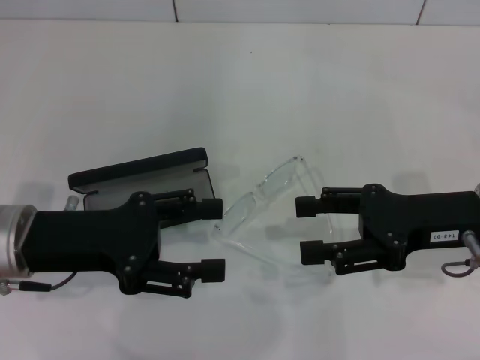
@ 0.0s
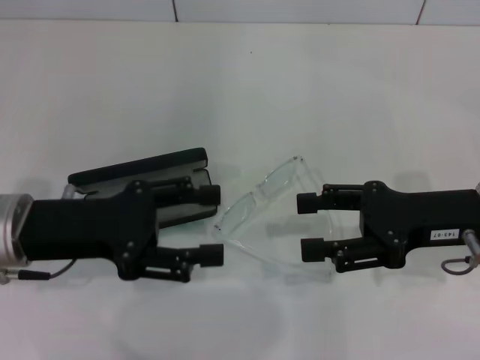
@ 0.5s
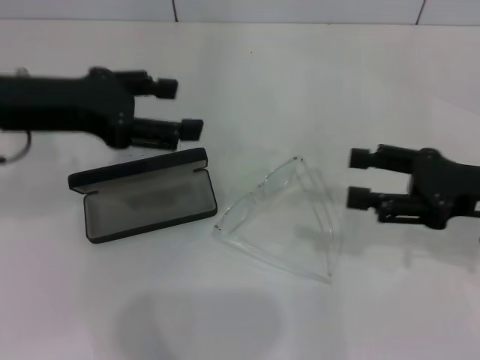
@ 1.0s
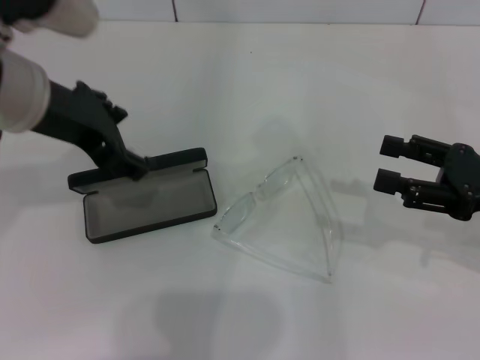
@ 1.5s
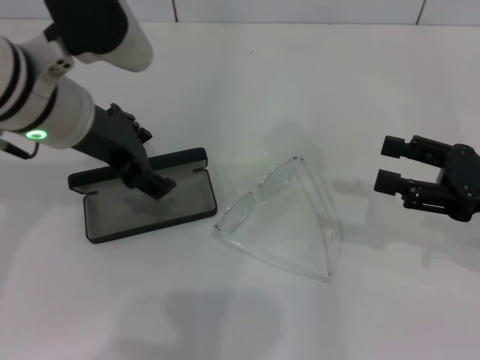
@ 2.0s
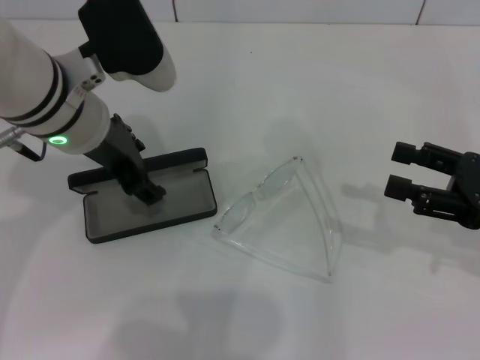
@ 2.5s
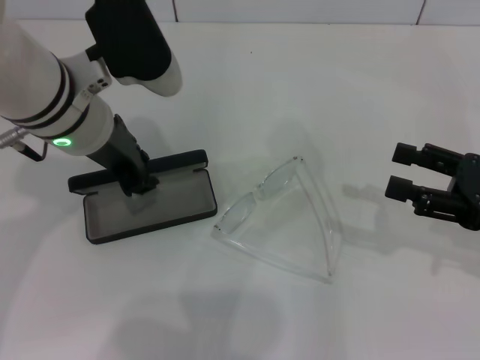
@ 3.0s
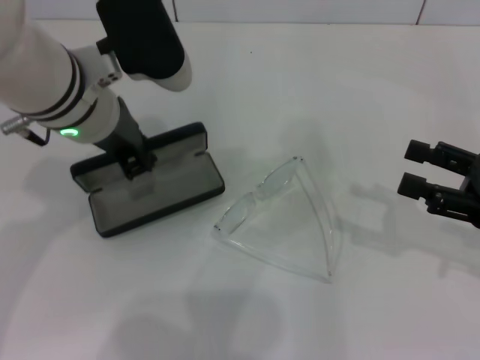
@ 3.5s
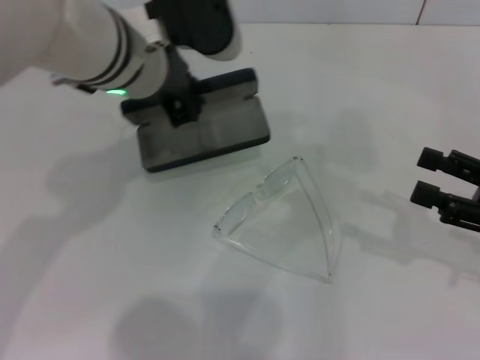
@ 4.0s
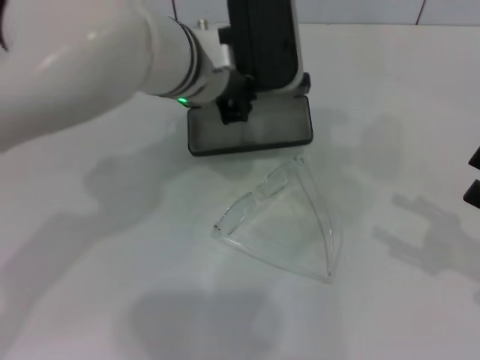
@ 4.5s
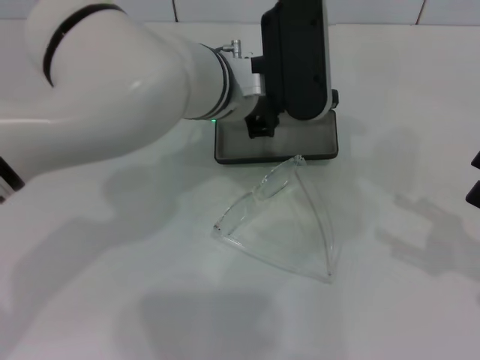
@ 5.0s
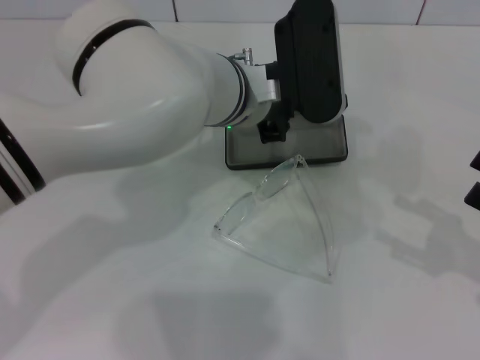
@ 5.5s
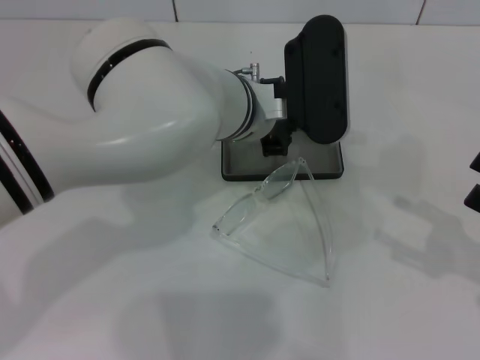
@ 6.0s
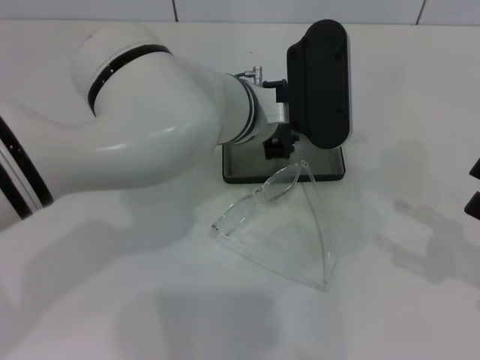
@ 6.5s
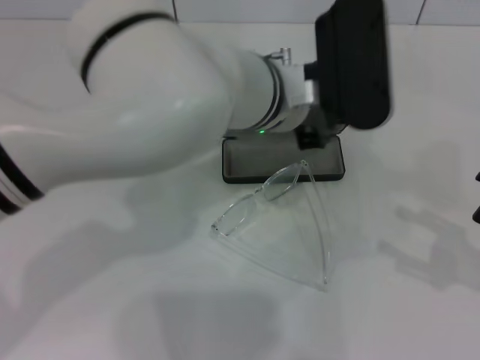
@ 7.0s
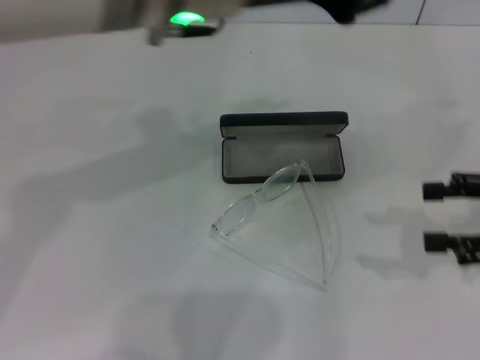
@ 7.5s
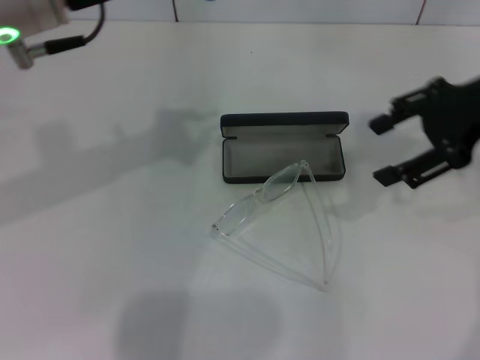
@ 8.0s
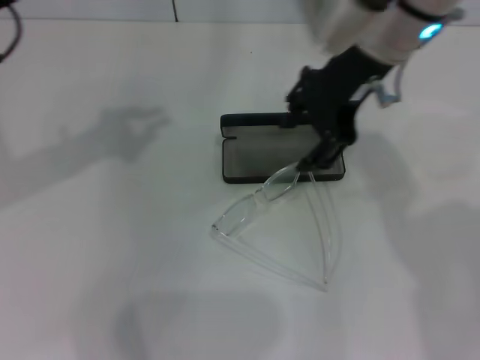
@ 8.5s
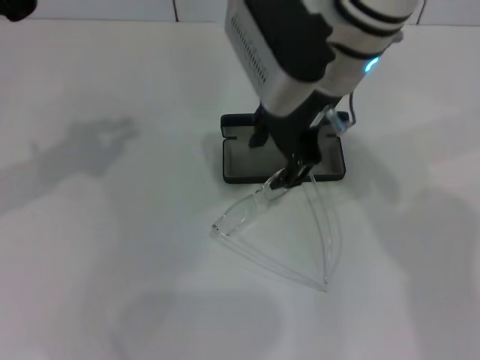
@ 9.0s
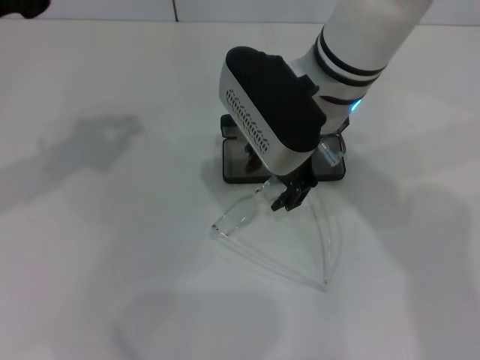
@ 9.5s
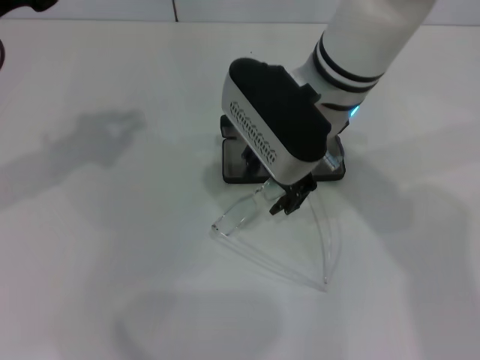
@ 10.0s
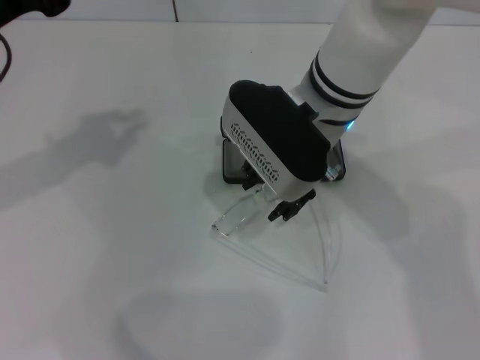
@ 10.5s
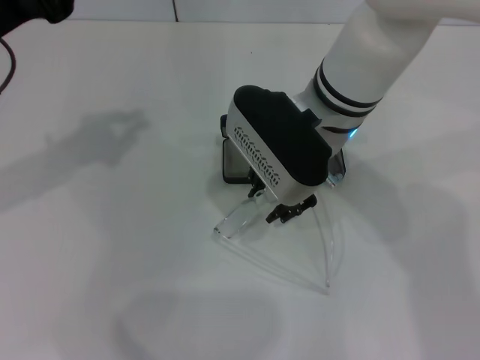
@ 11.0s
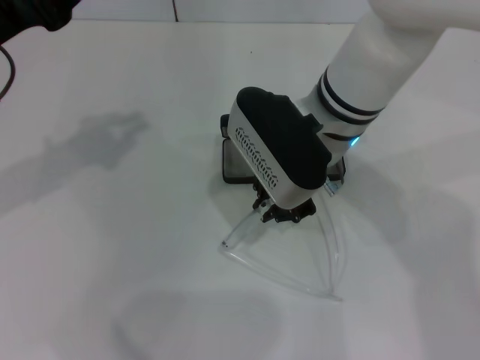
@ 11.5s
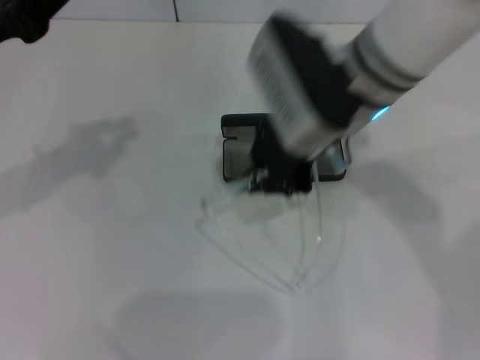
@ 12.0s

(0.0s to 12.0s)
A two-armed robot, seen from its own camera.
Step, 0.0s - 3.0s: Grab the glasses case with your left hand.
Step, 3.5s - 6.0s: Place the glasses case in the center of the table with your left hand.
Step, 6.5s - 11.0s: Grab the eyeglass frame with your right hand.
0.0s - 2.0s: The right gripper shifts roughly 5 cm to the right. Meanwhile the left gripper is displaced upward, forward and to the right by some 15 cm.
2.0s - 4.0s: The left gripper heads to the right, covering about 5 cm, and closes its fingers.
4.0s - 6.0s: The left gripper shifts roughly 10 cm to the right and downward.
6.0s - 8.0s: The right gripper heads forward, upward and to the left, covering some 25 cm. The left gripper is displaced to the left and upward by approximately 20 cm.
8.0s - 10.0s: The right gripper moves to the left, about 20 cm; the left gripper travels to the left and downward by approximately 10 cm.
10.0s - 12.0s: The right gripper closes up.

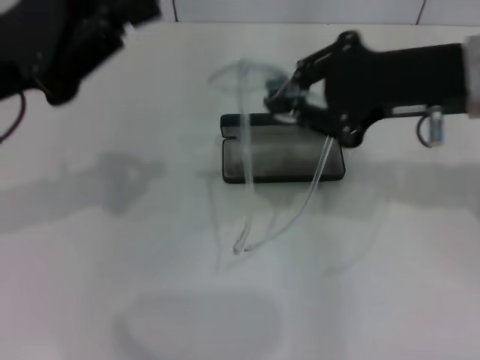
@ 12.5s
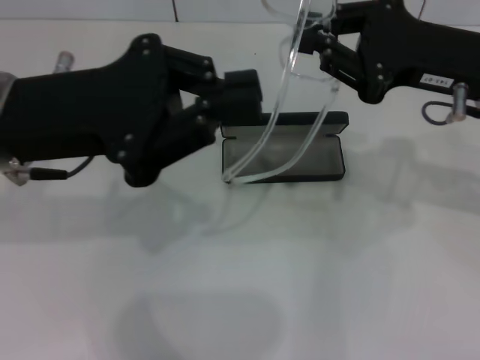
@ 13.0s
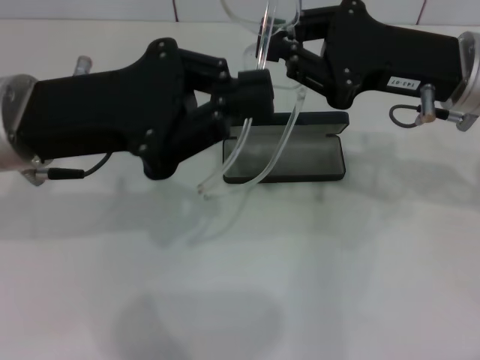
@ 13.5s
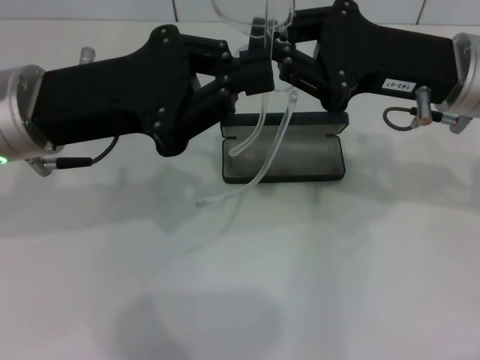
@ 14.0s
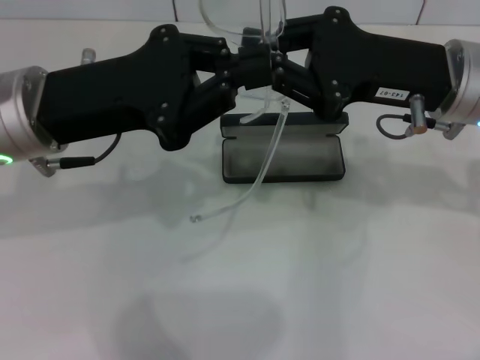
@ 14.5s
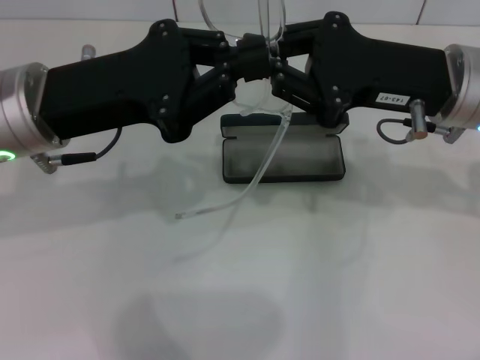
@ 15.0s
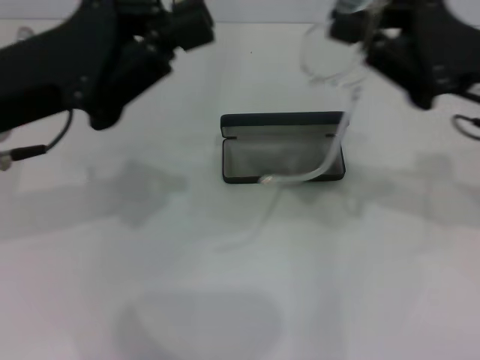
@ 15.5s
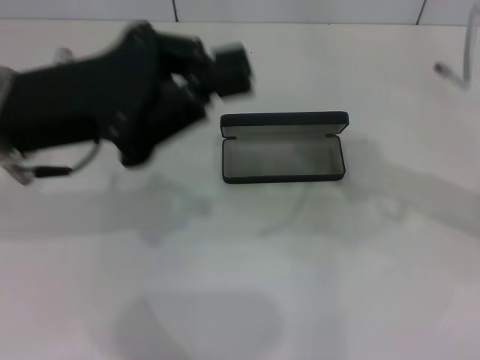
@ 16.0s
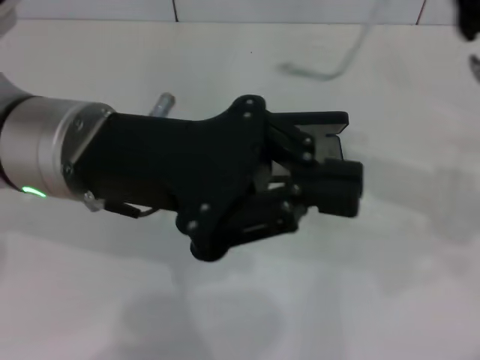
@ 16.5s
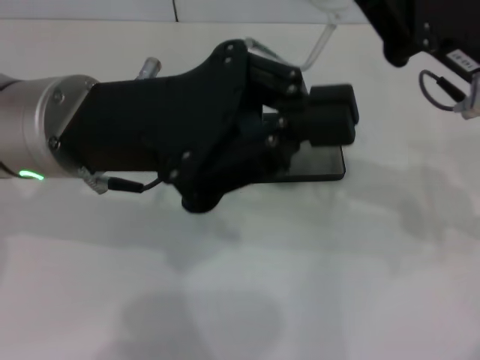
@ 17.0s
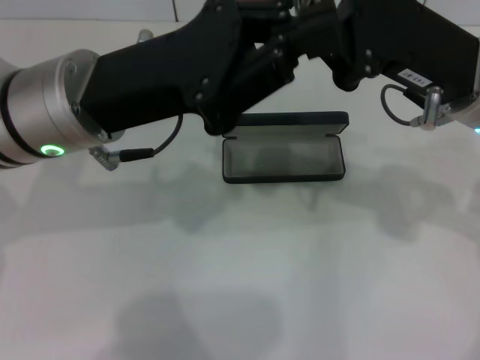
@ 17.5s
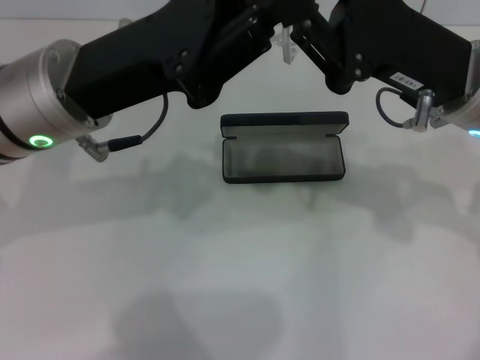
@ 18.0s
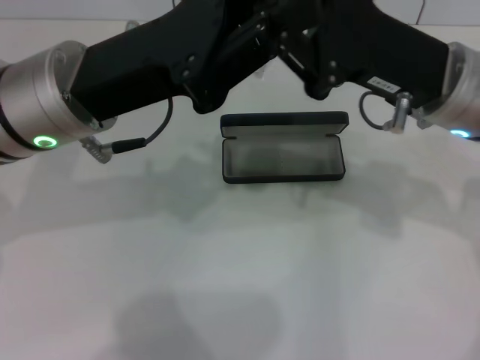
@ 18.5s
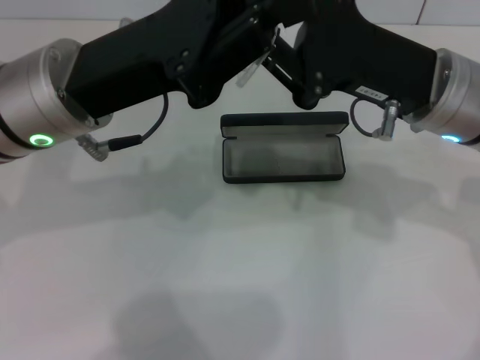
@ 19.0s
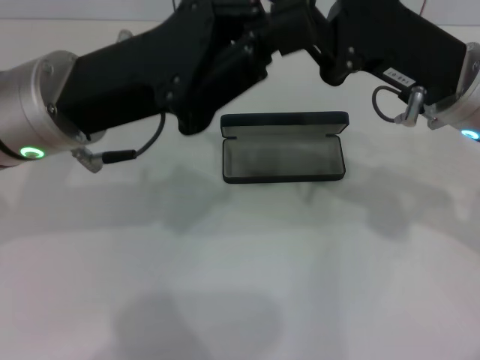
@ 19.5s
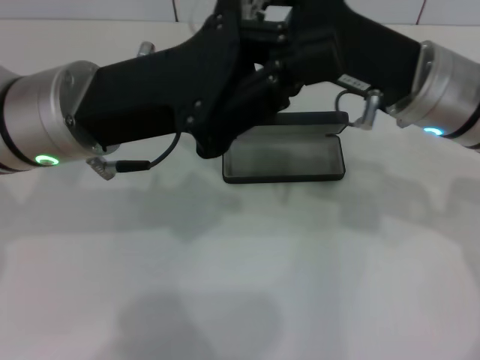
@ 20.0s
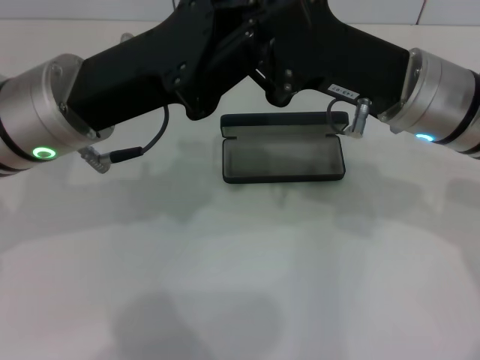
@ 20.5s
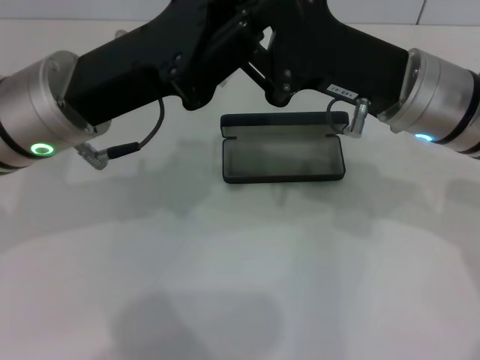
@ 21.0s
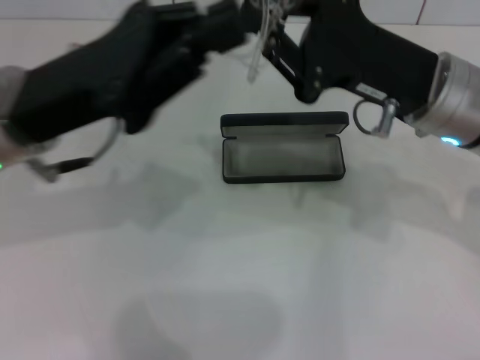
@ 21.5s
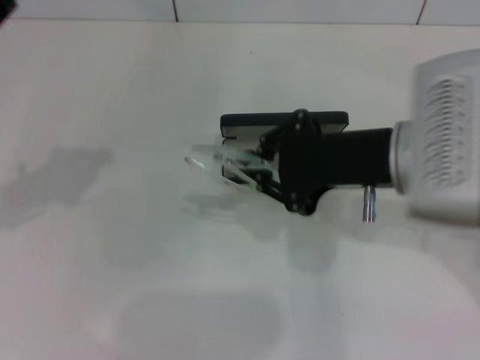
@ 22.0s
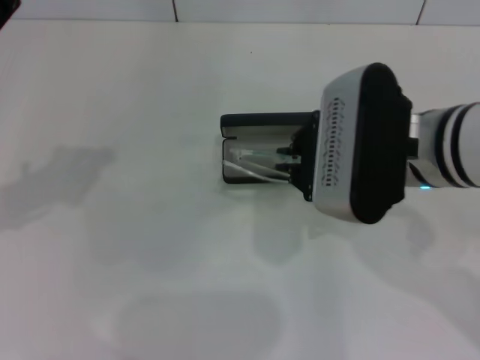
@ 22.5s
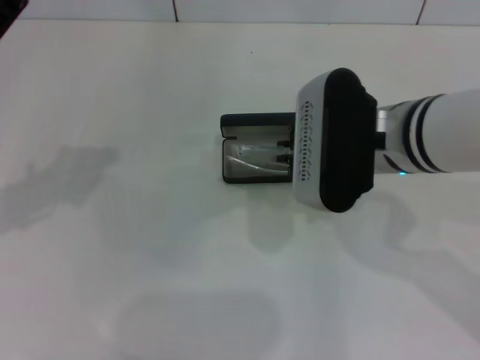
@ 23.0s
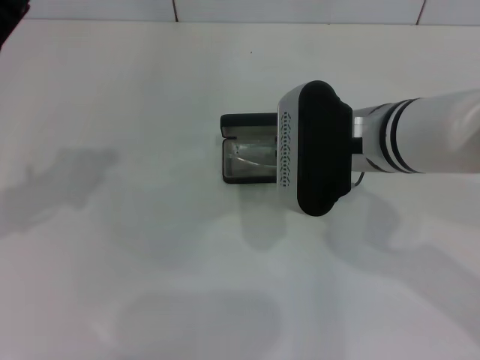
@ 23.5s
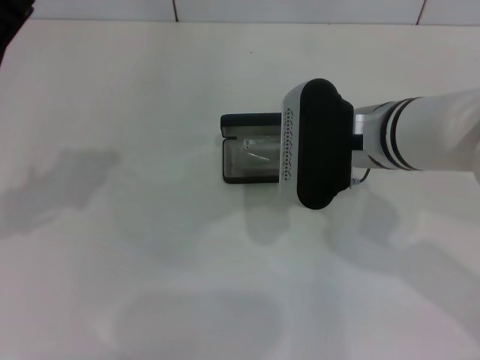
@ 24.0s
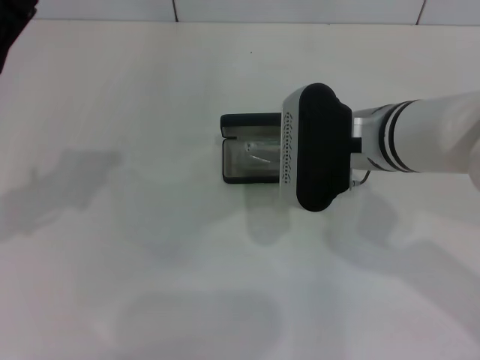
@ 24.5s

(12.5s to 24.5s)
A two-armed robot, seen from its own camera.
Step, 12.5s - 21.0s: Fold the frame with your left hand.
12.5s - 14.5s: The left gripper goes roughly 5 cm to the right.
14.5s - 16.5s: The left gripper shifts by about 5 cm.
16.5s - 18.5s: The right gripper heads to the left, covering roughly 5 cm.
18.5s - 20.5s: The grippers make only small movements.
20.5s - 22.5s: The left gripper goes approximately 10 cm to the left.
22.5s - 24.5s: The right gripper ends up approximately 5 cm from where it was.

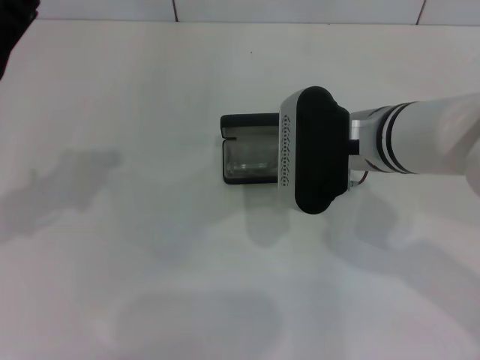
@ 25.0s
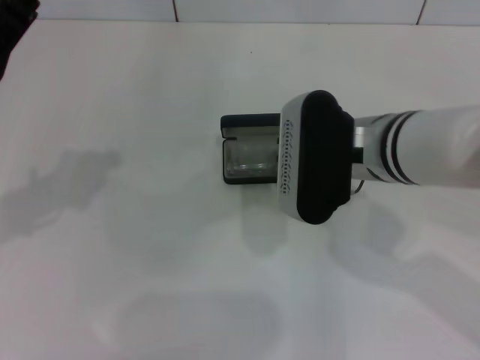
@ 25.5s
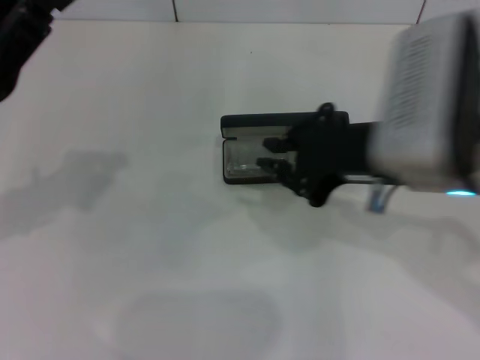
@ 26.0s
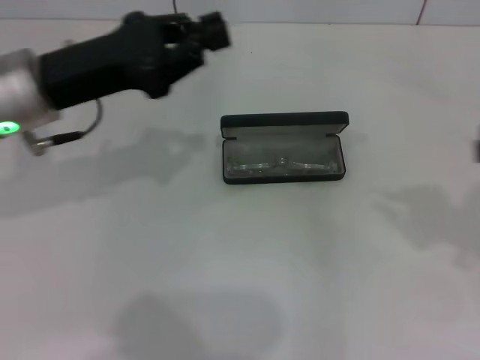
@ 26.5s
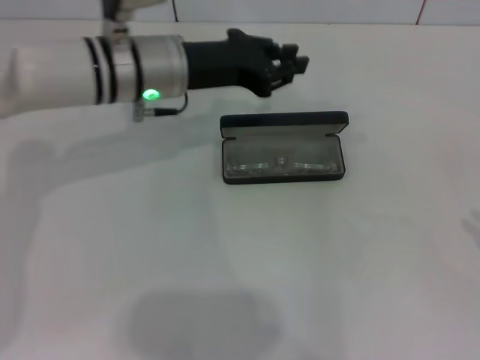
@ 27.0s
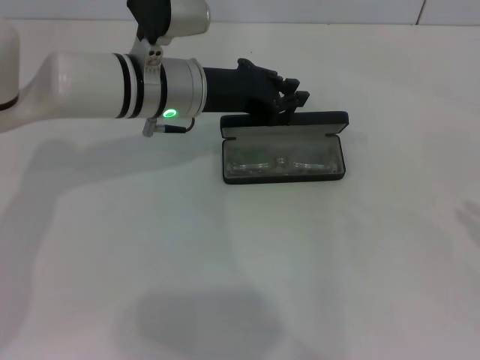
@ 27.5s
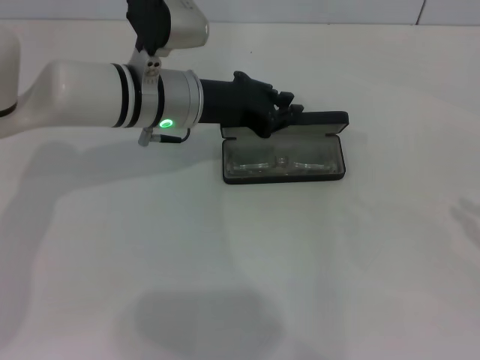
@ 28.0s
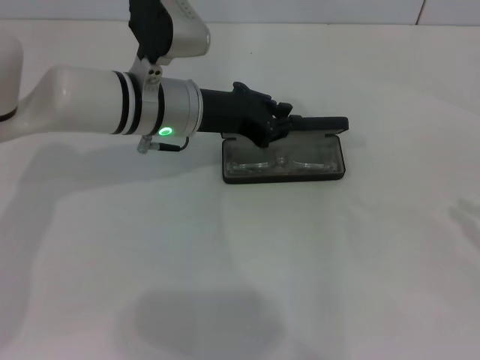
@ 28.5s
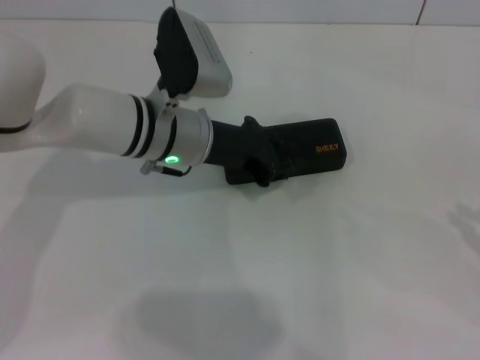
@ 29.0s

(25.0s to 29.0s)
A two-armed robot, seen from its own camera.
Step, 25.5s - 28.5s: Close the glasses case with your left hand.
25.0s - 27.0s: The right gripper shifts some 35 cm to the right and backward; the left gripper heads to the right and forward, covering about 20 cm.
27.0s - 29.0s: The left gripper ends up roughly 5 cm from where it was.
